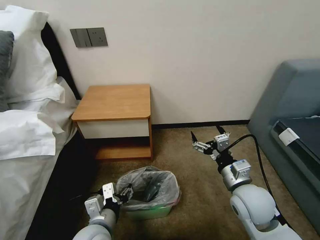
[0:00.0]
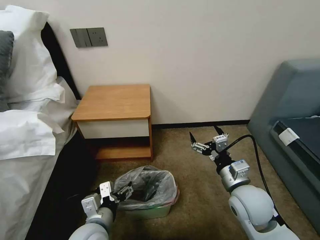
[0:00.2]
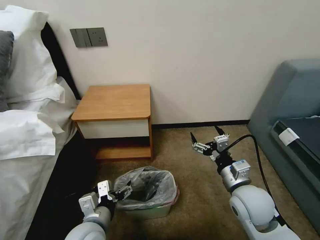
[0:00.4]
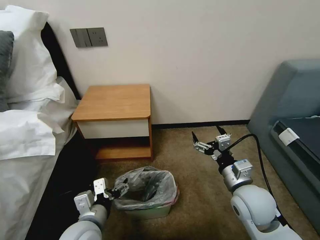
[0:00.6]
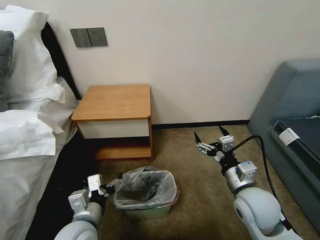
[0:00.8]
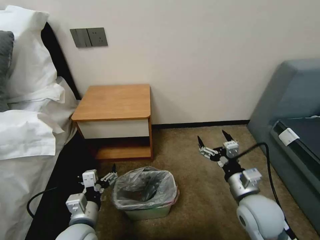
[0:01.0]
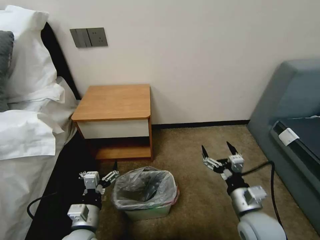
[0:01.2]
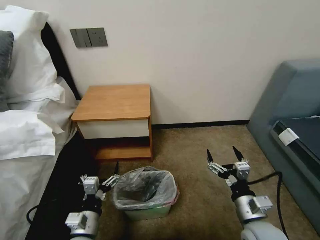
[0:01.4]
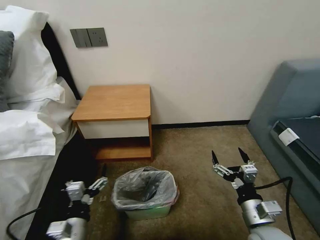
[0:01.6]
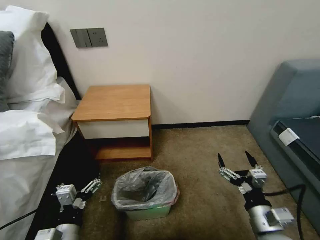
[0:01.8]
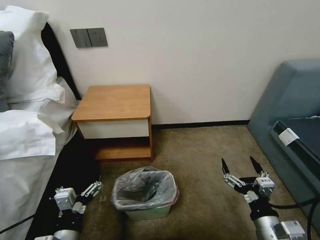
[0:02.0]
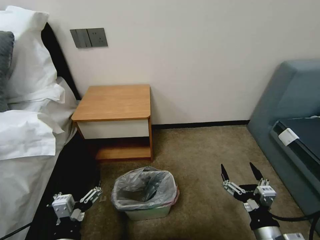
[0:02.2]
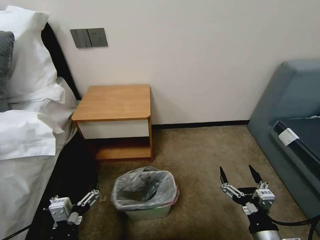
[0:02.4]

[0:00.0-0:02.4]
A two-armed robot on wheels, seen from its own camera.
Task of the whole recording: Pick up the garbage bag from the table and place it over the trash can.
0:00.0 to 0:01.2: The left gripper moves about 5 cm, and opens, while the right gripper goes about 5 cm backward.
0:01.2 to 0:02.4: The two grippers go roughly 10 cm backward.

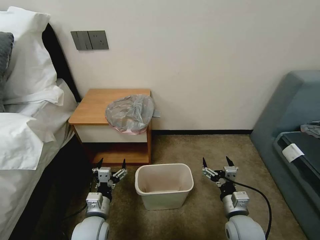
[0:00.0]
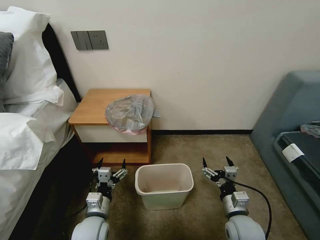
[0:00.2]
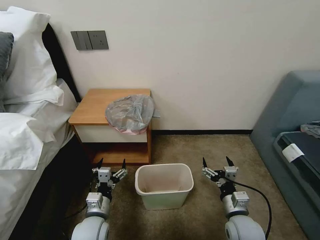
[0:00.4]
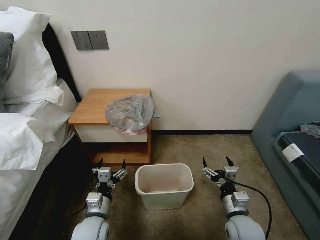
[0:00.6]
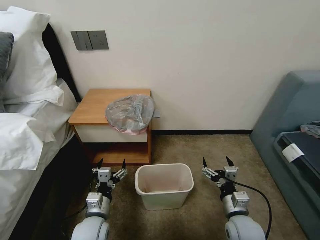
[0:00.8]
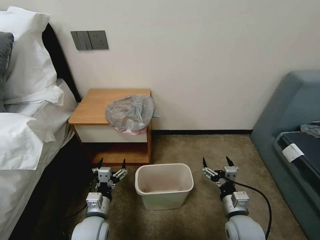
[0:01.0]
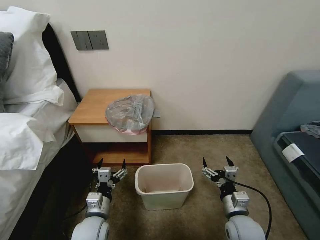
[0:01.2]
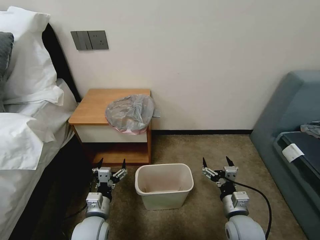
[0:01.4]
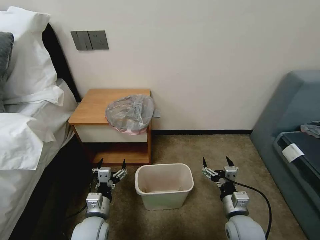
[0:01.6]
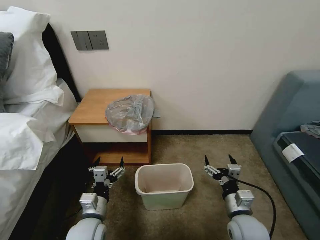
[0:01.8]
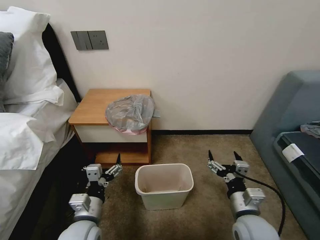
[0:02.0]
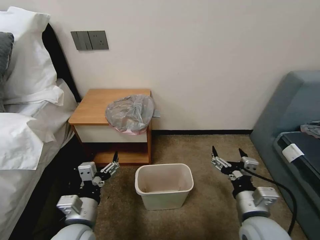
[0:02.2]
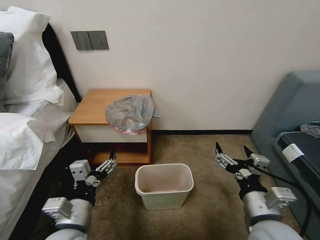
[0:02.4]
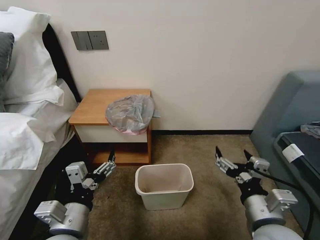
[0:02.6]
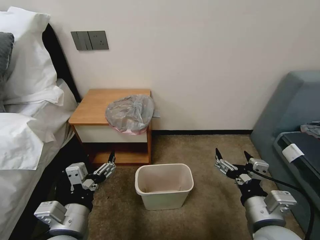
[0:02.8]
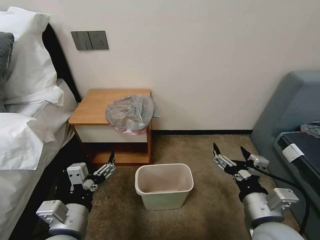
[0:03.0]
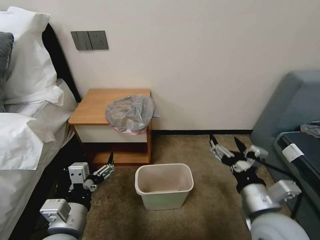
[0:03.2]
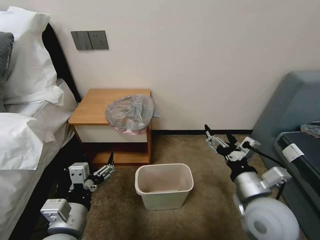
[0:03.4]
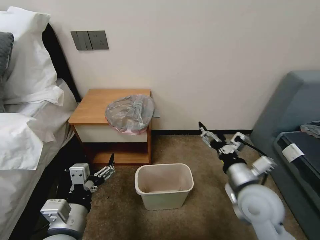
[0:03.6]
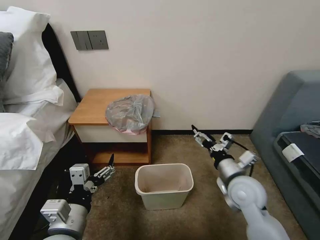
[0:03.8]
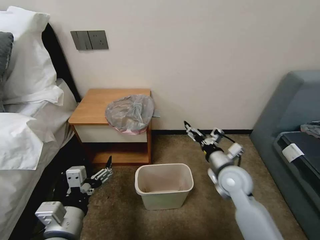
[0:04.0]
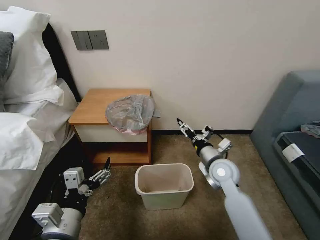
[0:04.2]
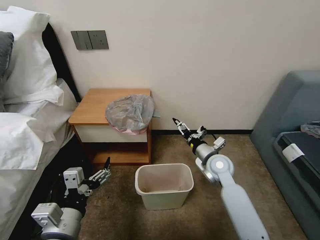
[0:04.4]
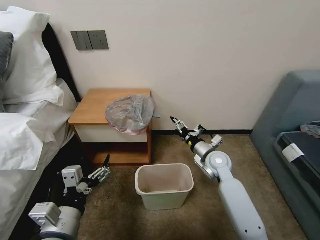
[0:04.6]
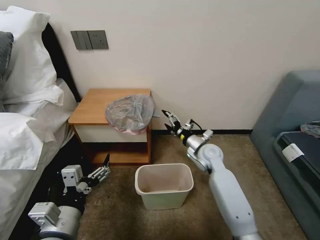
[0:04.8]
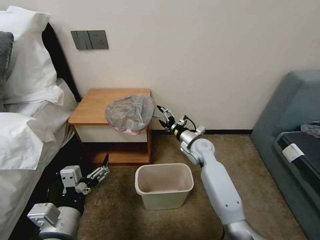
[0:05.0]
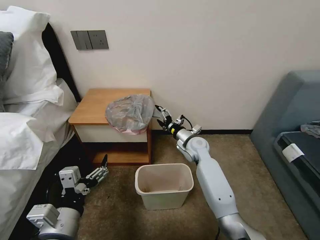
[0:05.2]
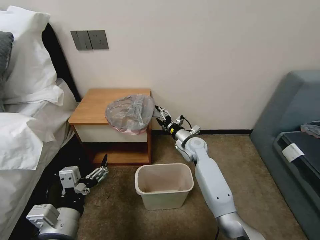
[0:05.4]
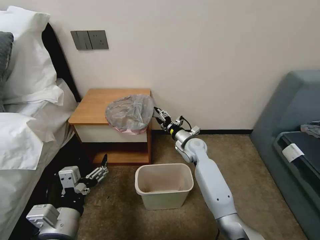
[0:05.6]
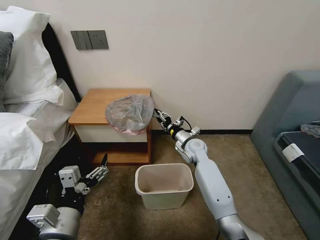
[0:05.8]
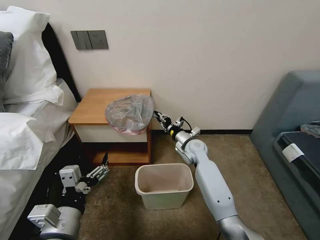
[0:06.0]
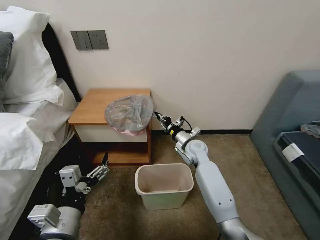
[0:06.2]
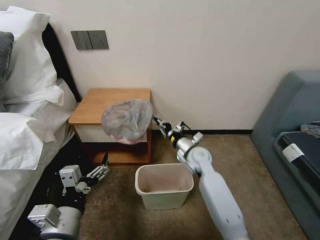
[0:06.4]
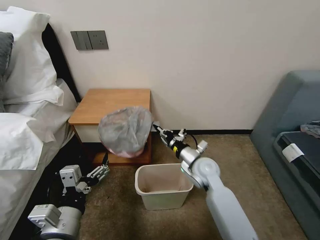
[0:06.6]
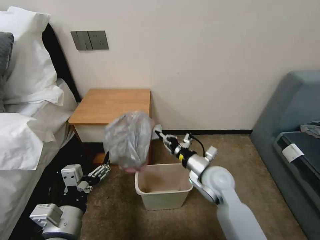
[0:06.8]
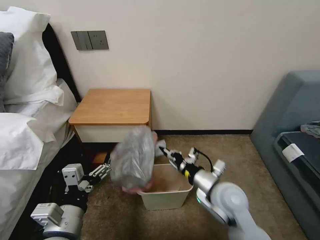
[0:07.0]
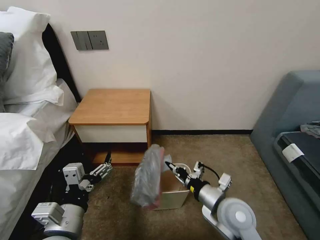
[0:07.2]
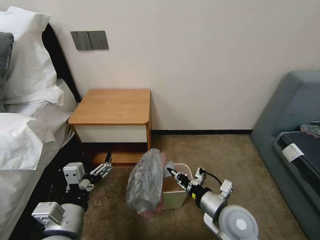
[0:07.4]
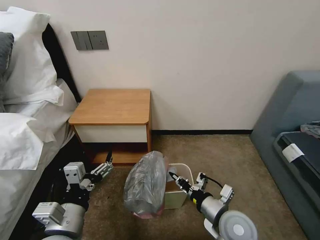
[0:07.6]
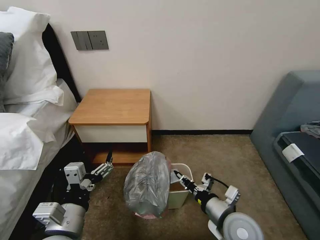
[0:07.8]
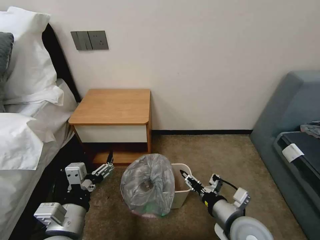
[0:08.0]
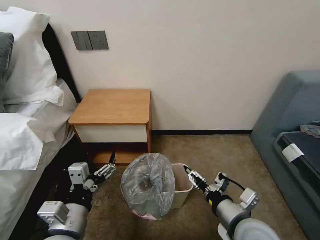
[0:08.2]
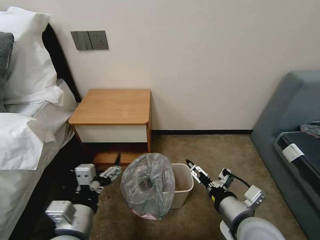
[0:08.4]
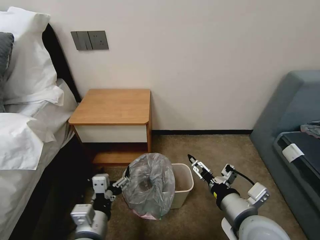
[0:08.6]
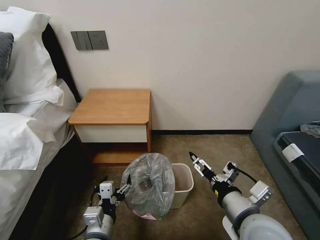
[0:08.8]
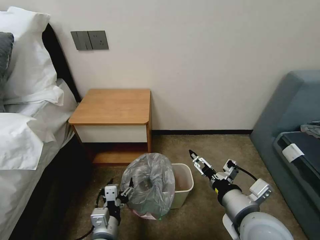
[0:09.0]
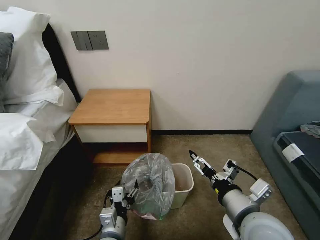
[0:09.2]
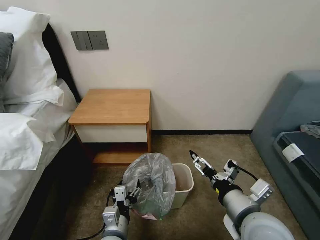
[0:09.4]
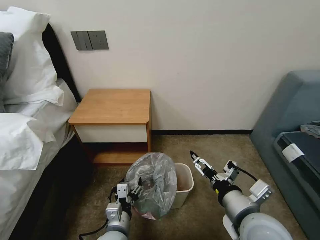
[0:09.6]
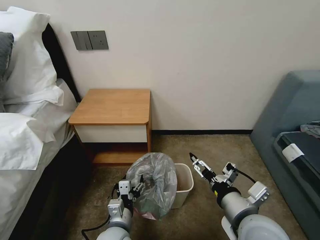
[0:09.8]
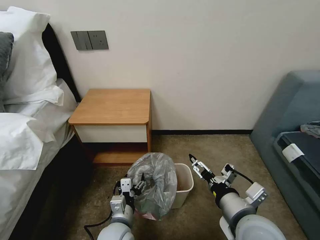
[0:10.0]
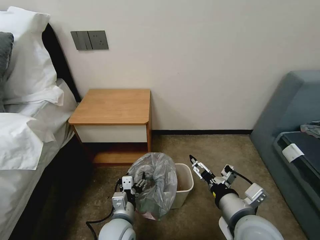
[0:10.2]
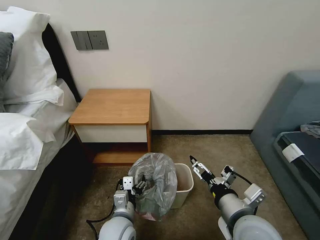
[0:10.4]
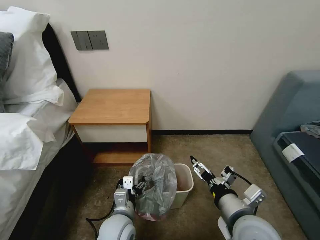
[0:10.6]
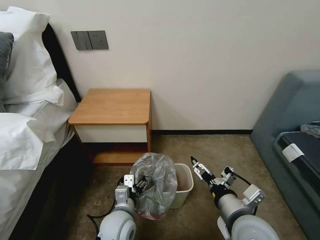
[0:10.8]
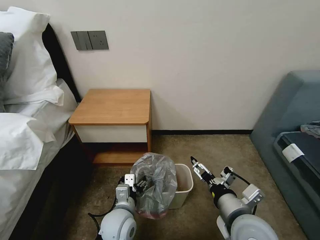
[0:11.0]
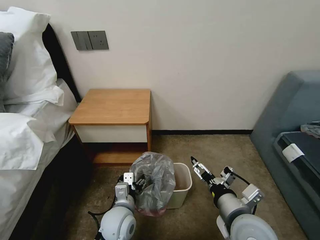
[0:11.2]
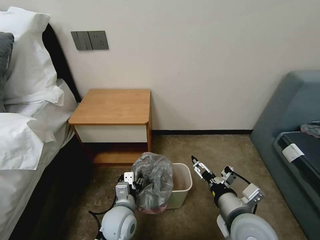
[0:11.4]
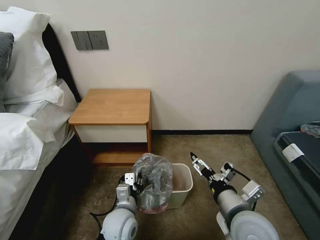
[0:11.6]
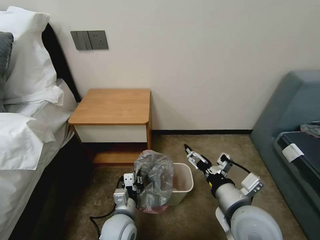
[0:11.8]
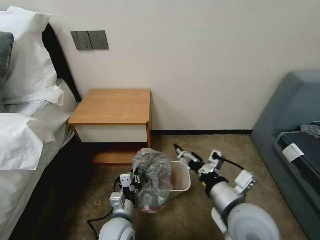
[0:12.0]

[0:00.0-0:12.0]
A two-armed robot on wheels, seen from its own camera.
Task of the whole recording: Pick up the garbage bag from the table and place it over the trash can.
0:01.6 to 0:03.0: The right gripper travels upward by approximately 15 cm. The left gripper heads upward and backward, covering about 15 cm.
0:03.0 to 0:04.4: The right gripper heads forward, covering approximately 25 cm.
0:04.4 to 0:06.0: The right gripper is displaced forward and to the left by some 10 cm, and closes its fingers.
0:06.0 to 0:07.6: The right gripper moves backward, approximately 30 cm.
0:07.6 to 0:09.0: The left gripper moves downward and to the right, about 10 cm; the right gripper goes approximately 10 cm upward, and opens its fingers.
0:09.0 to 0:10.4: The left gripper moves forward, some 5 cm.
0:10.4 to 0:12.0: The left gripper closes up.

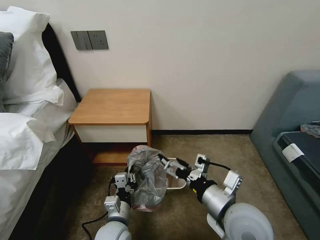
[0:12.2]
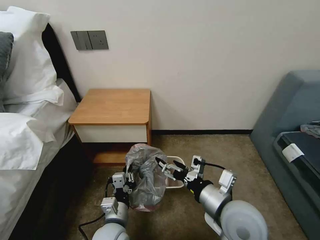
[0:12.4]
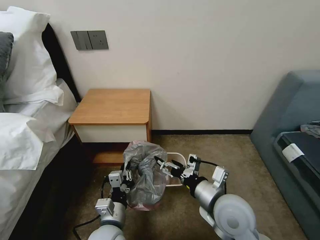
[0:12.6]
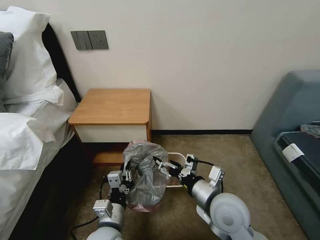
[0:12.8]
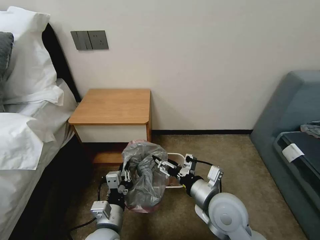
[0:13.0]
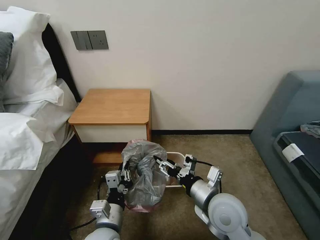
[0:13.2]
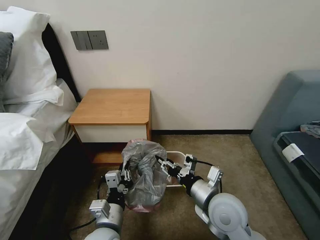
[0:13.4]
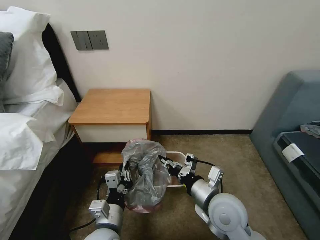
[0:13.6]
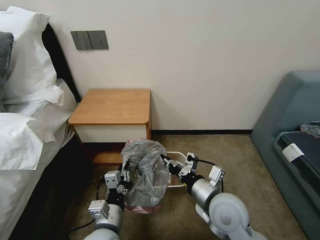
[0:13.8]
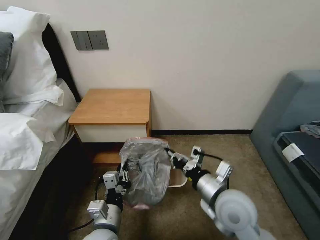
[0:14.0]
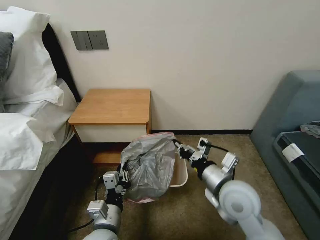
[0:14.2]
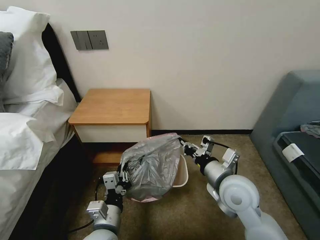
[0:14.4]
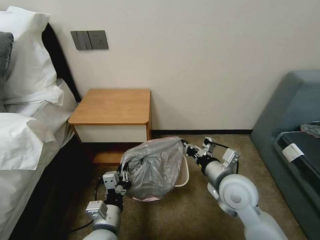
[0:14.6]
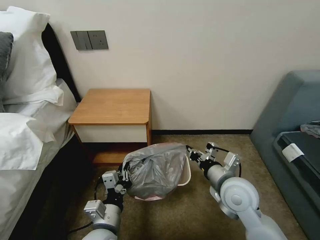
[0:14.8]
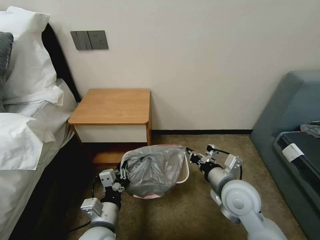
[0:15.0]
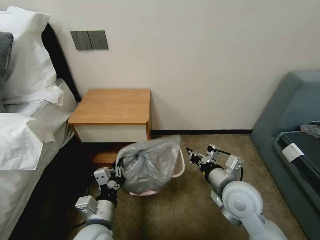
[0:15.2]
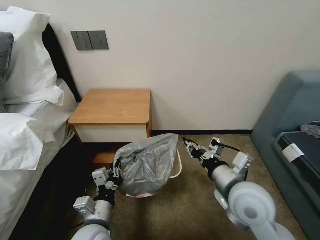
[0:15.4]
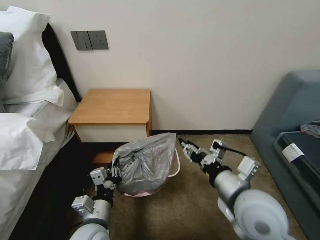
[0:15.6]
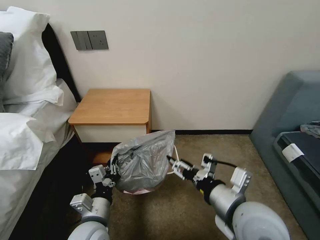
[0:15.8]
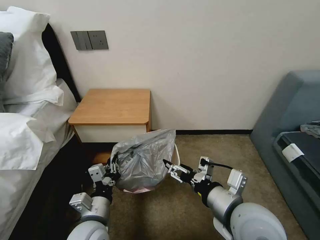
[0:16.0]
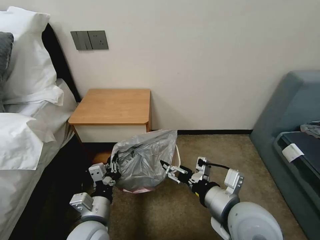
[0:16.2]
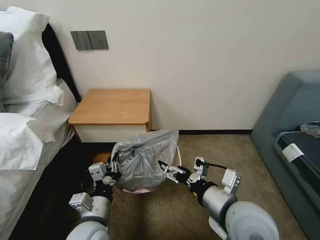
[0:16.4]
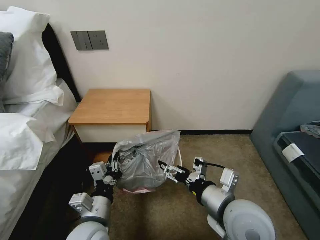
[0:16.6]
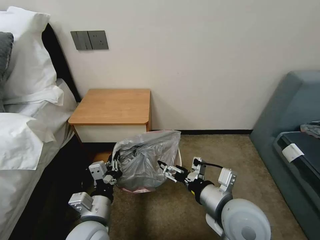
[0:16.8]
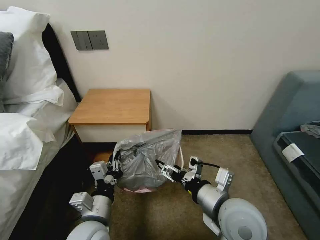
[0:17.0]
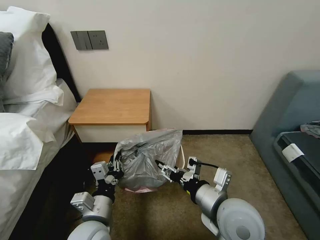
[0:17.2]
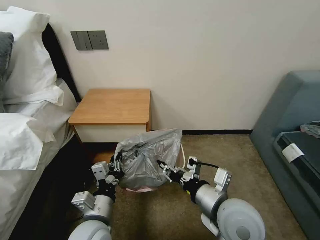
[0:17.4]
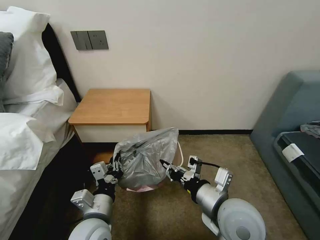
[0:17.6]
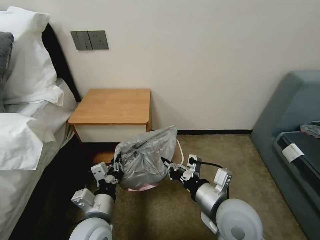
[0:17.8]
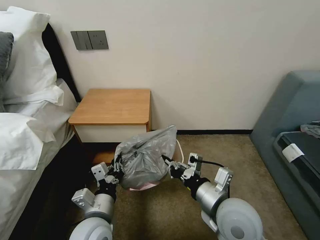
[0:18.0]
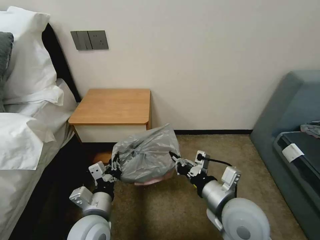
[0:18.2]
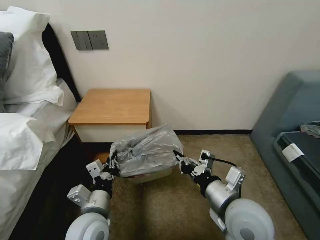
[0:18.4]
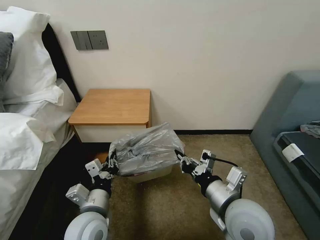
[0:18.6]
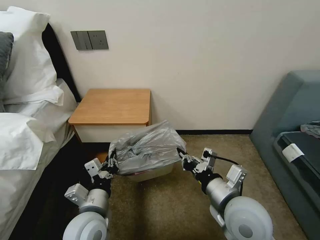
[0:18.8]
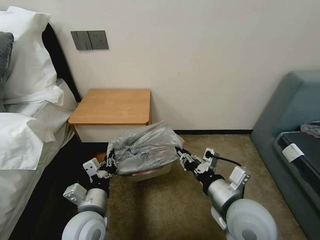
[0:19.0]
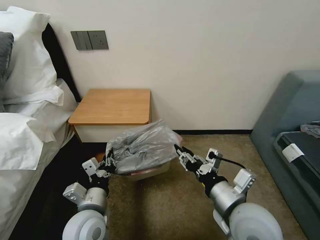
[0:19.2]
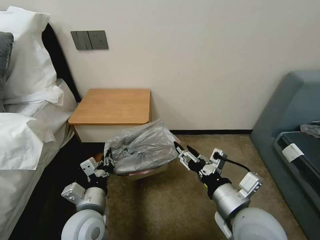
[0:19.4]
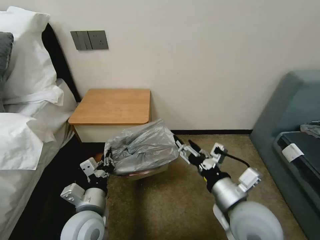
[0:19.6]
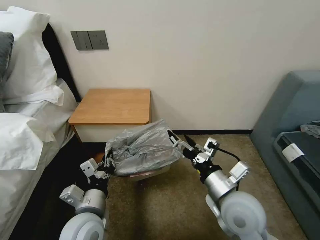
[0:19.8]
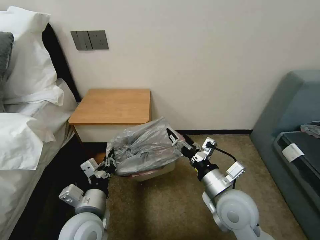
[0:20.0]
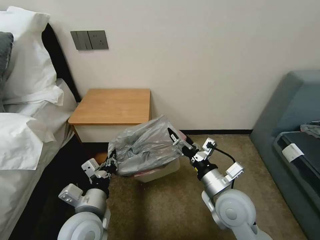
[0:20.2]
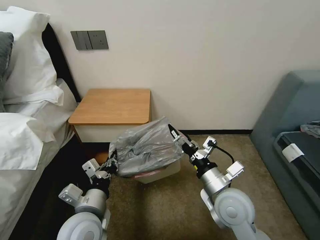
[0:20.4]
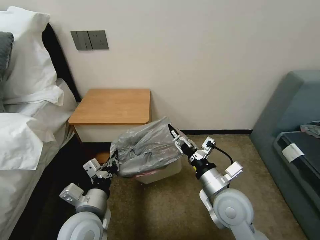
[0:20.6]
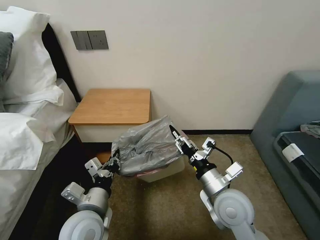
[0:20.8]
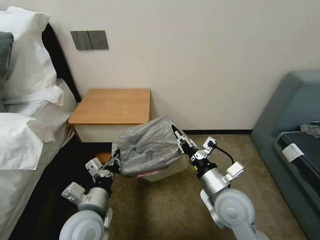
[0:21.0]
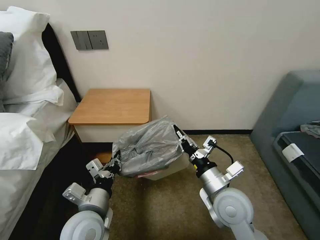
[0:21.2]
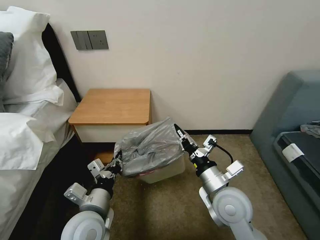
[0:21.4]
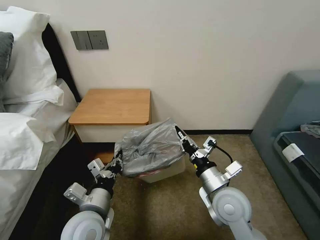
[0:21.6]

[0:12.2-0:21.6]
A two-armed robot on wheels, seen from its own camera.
Task of the whole recording: Pick up the garbage bag from the table and place it over the trash can.
0:12.2 to 0:13.8: The right gripper moves about 5 cm, and closes up. The left gripper shifts approximately 5 cm upward.
0:13.8 to 0:15.4: The right gripper heads upward, covering roughly 5 cm.
0:15.4 to 0:17.0: The right gripper shifts by about 5 cm, and opens.
0:17.0 to 0:18.4: The right gripper closes.
0:18.4 to 0:20.0: The right gripper opens.
0:20.0 to 0:21.6: The right gripper closes.
